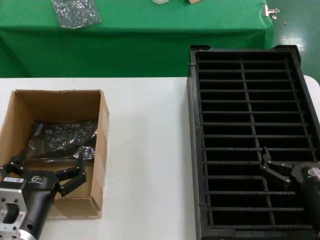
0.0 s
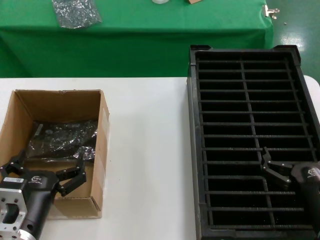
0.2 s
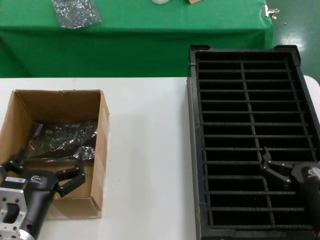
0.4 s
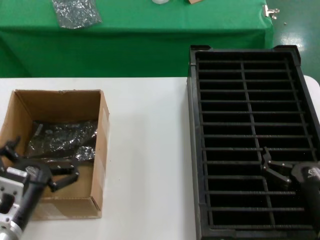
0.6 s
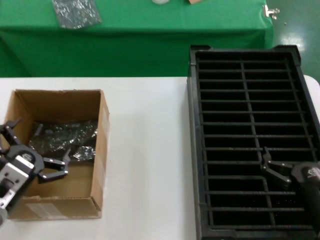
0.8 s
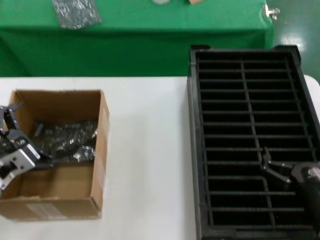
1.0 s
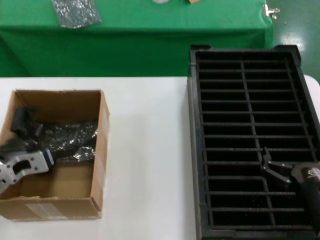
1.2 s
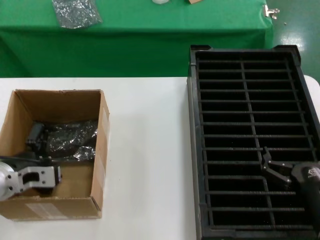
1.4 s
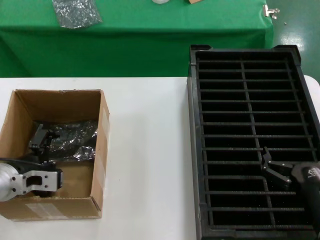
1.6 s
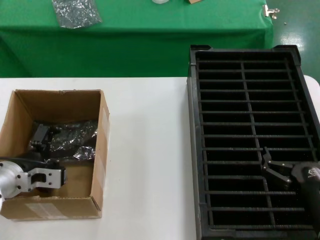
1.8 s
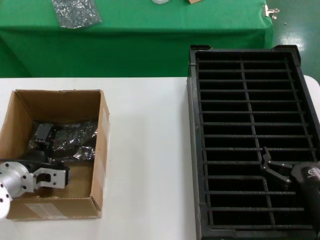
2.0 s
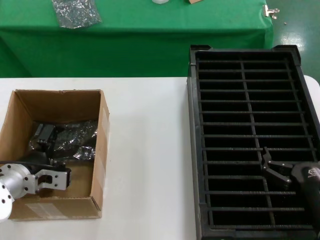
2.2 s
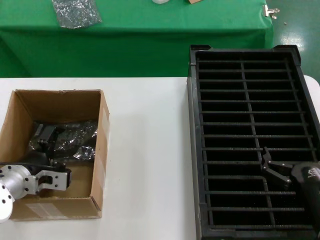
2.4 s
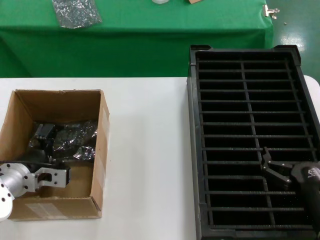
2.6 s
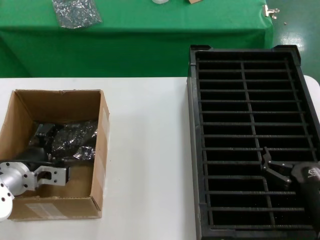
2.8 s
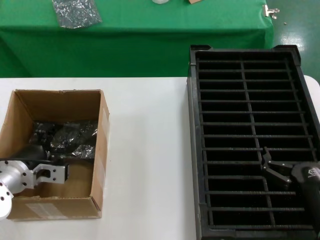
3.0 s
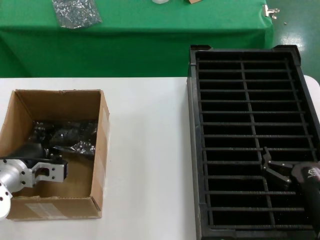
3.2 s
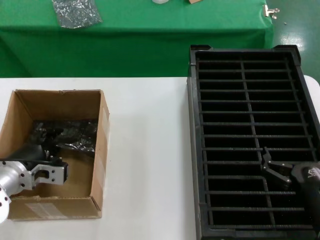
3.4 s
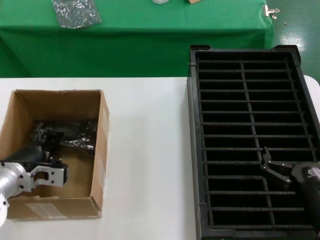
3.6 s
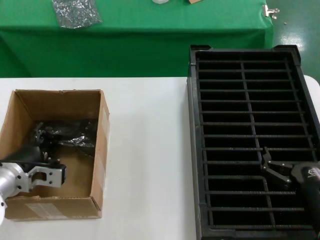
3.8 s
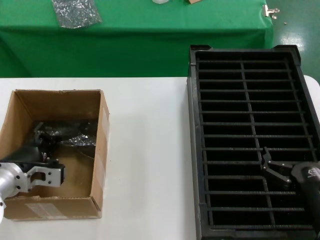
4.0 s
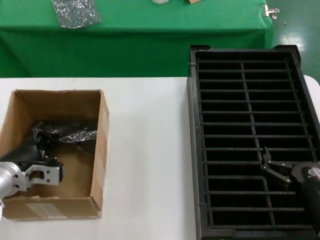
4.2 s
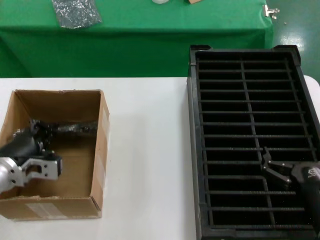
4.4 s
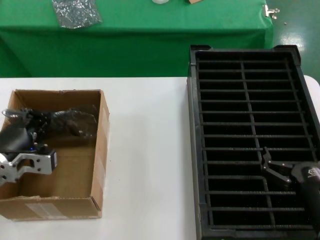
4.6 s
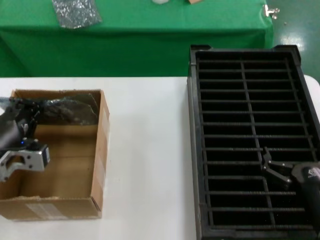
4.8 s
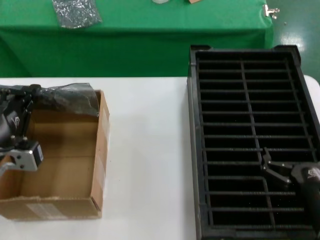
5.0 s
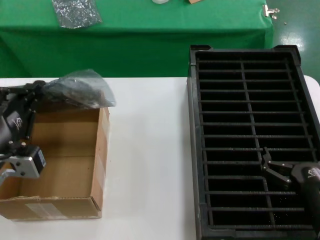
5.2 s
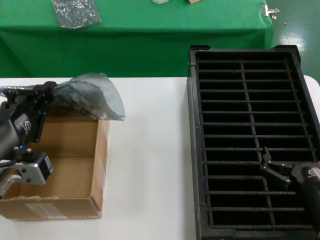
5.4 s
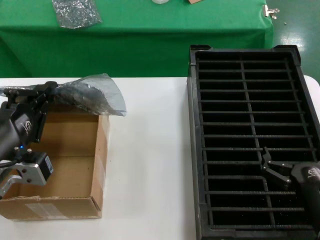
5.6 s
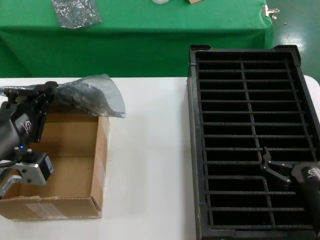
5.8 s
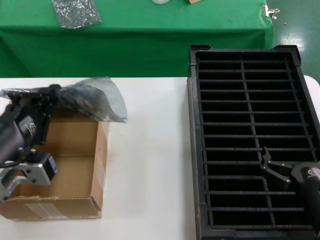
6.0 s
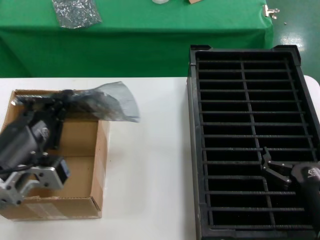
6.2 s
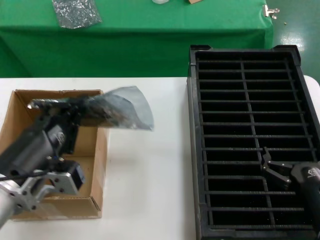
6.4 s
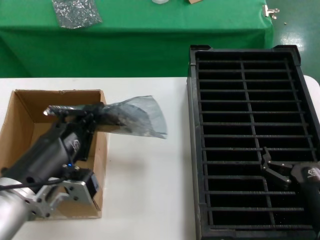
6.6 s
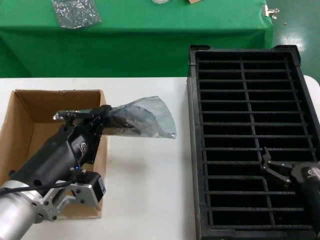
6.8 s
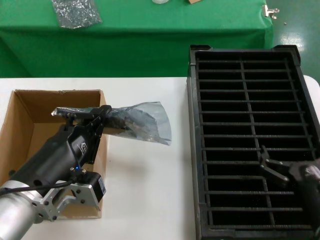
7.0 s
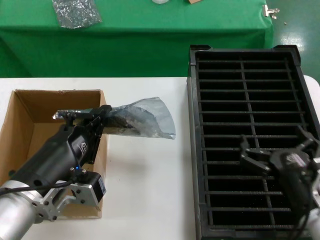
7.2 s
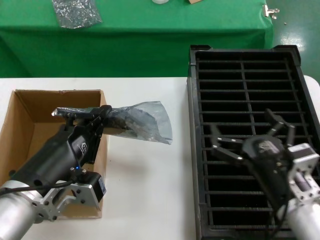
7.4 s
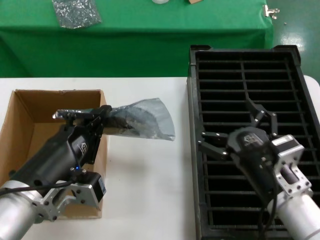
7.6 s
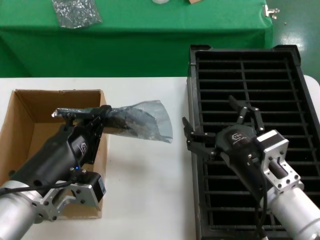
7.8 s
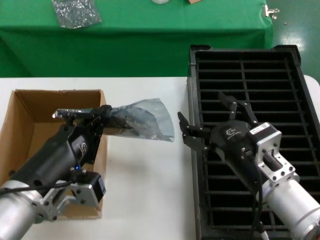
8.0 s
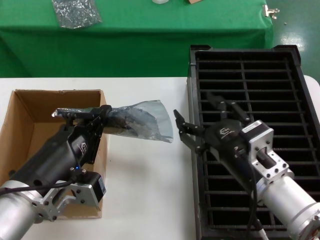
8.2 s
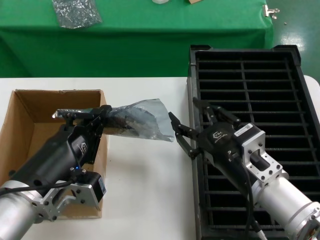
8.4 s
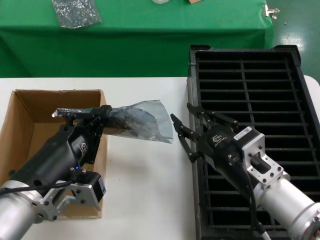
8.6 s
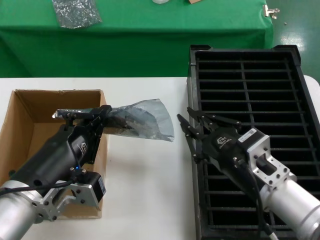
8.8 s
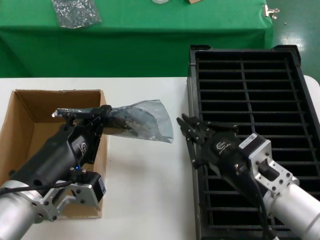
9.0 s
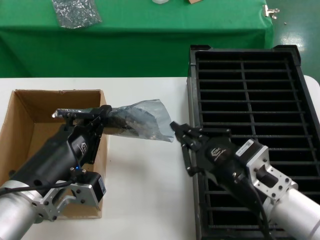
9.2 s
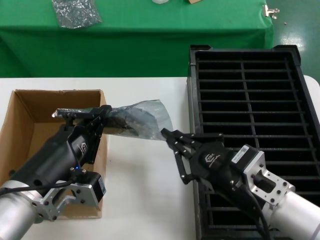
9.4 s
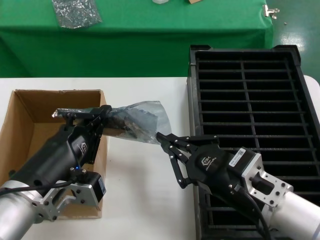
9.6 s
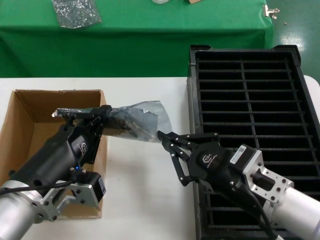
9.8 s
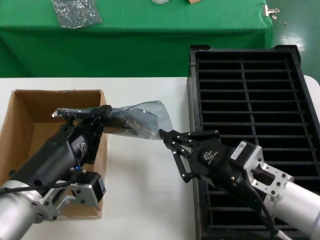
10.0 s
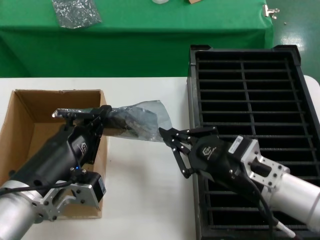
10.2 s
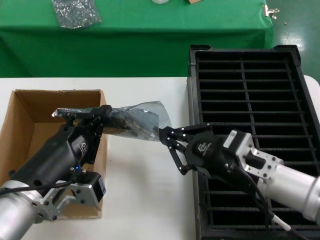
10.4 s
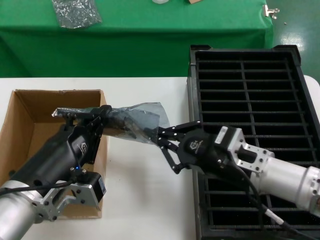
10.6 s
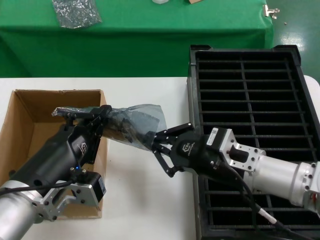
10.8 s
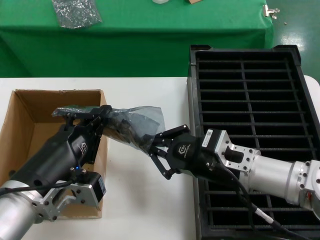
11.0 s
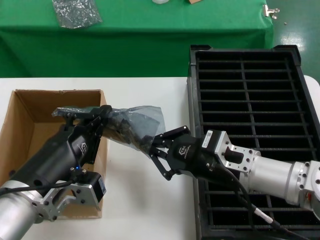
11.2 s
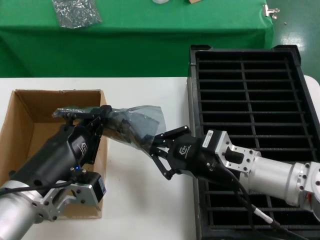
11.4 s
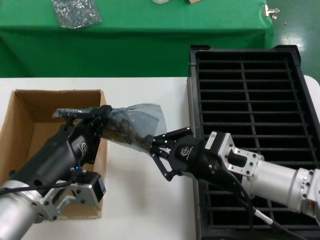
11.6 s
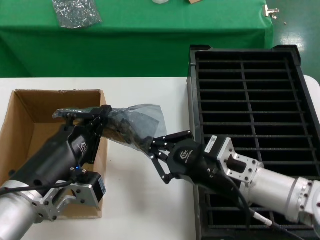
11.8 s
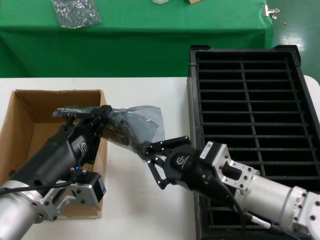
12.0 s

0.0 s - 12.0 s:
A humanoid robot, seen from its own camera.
Task of the whole recording: take out graphics card from box remove packaging put into black container.
Step, 0.0 s - 3.6 s: Grasp the bag.
Step, 4.0 s - 7.0 s: Lift the bag.
0.0 s - 1.6 s: The left hand is displaced forward, to the left and upward by some 15 cm.
1.6 s - 4.4 s: The hands stay close to where they were, moving slightly.
4.4 s - 6.0 s: The left hand travels backward and upward by roughly 15 cm.
6.0 s - 7.6 s: The left hand heads to the right, covering approximately 5 cm. Meanwhile the right hand moves to the left and upward, roughly 10 cm.
7.6 s - 9.0 s: The hands make only small movements.
9.0 s - 10.4 s: The hands stay close to where they were, moving slightly.
10.4 s - 12.0 s: There are only small adjustments of the hands.

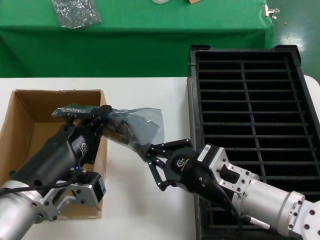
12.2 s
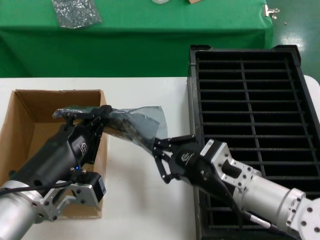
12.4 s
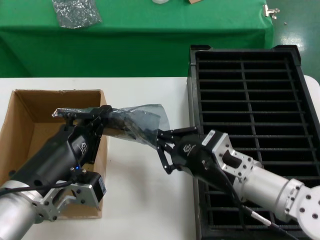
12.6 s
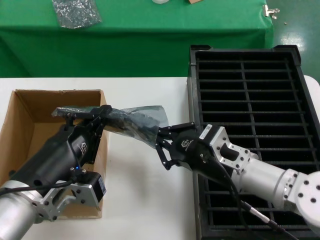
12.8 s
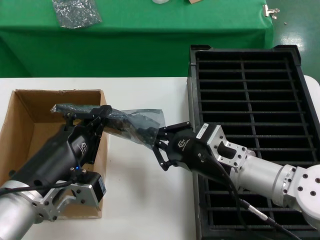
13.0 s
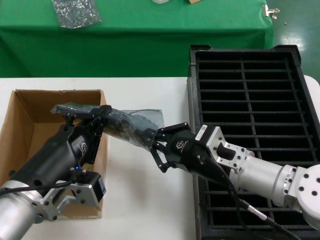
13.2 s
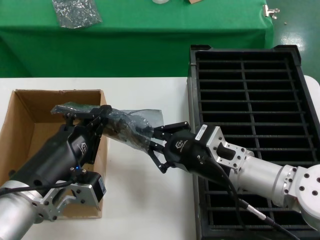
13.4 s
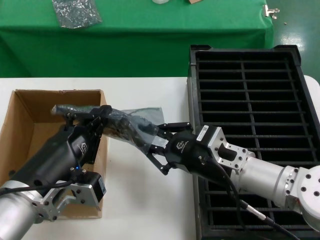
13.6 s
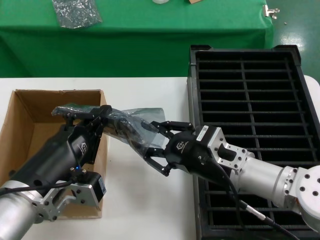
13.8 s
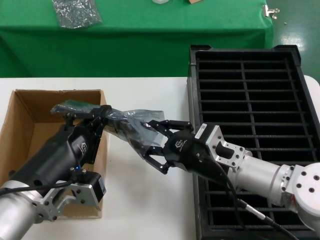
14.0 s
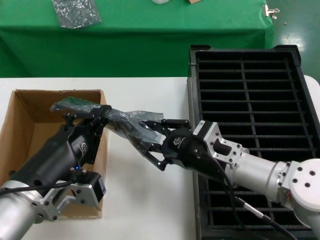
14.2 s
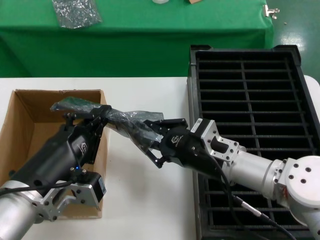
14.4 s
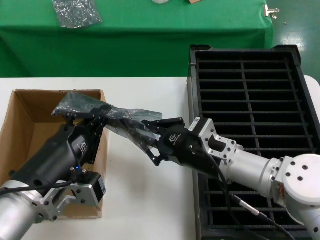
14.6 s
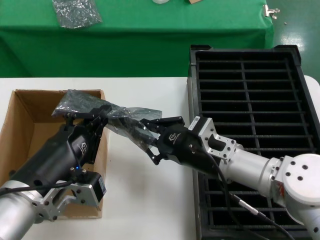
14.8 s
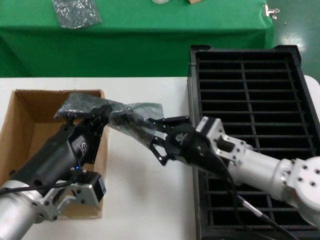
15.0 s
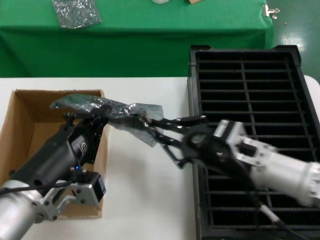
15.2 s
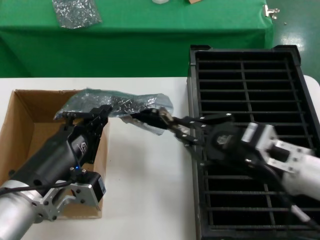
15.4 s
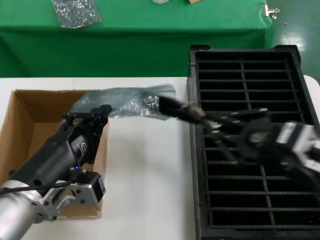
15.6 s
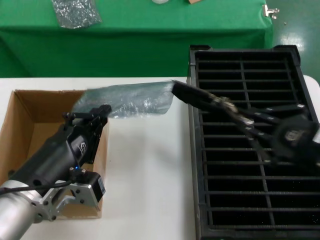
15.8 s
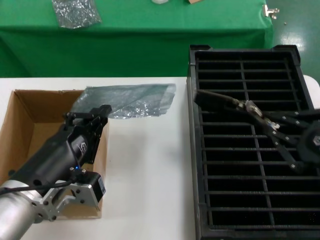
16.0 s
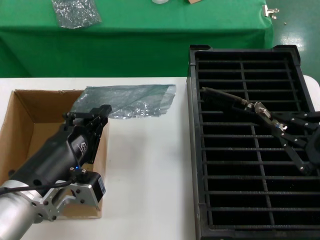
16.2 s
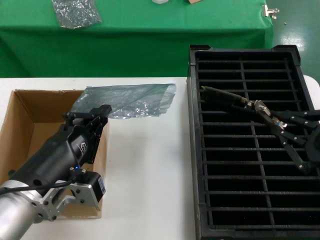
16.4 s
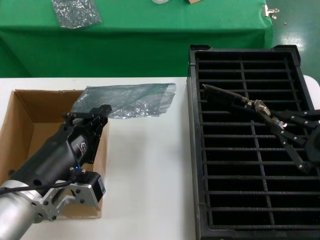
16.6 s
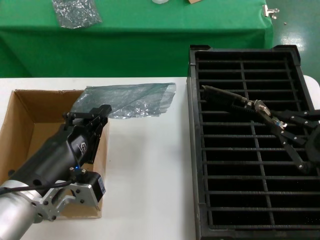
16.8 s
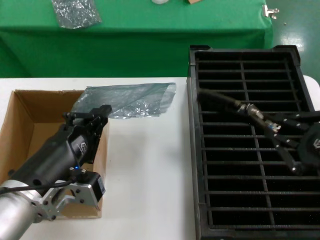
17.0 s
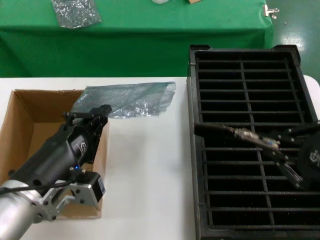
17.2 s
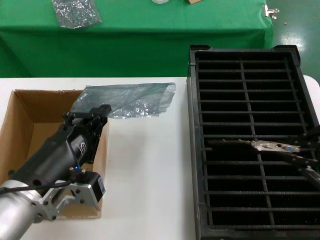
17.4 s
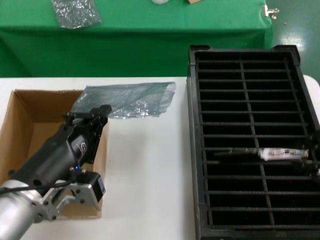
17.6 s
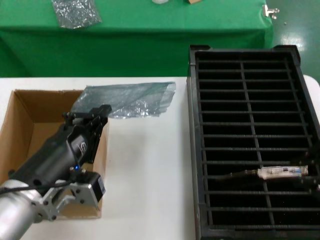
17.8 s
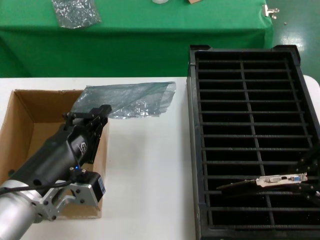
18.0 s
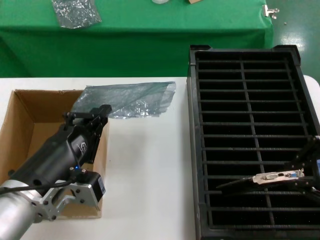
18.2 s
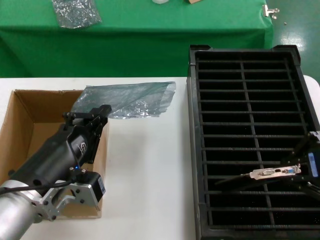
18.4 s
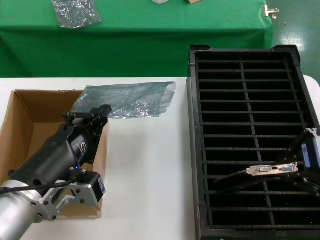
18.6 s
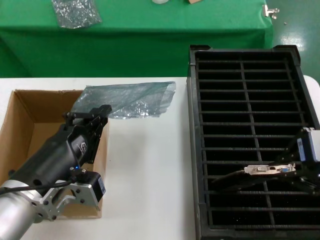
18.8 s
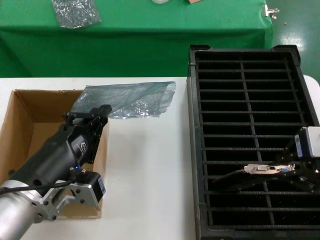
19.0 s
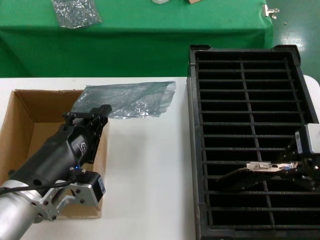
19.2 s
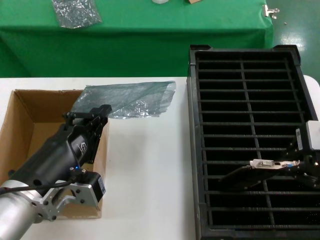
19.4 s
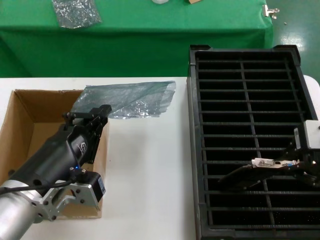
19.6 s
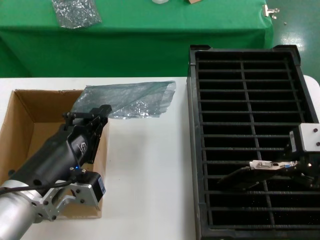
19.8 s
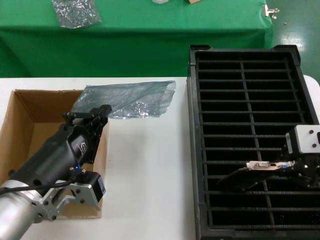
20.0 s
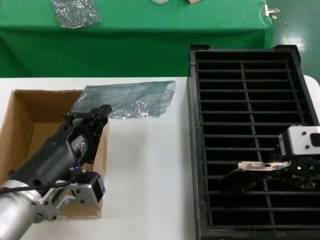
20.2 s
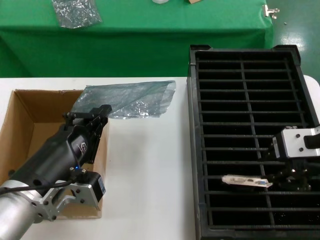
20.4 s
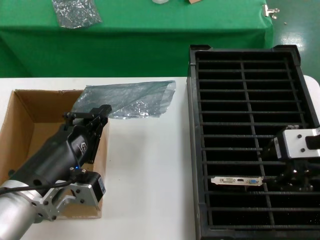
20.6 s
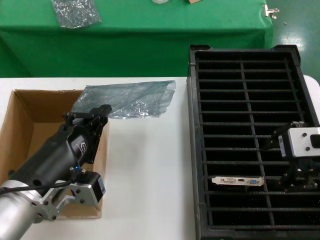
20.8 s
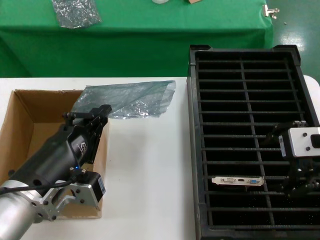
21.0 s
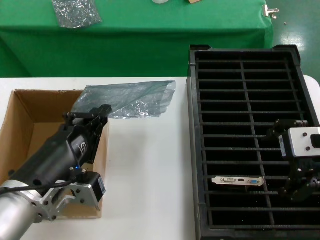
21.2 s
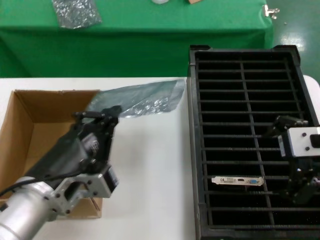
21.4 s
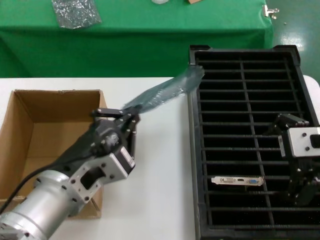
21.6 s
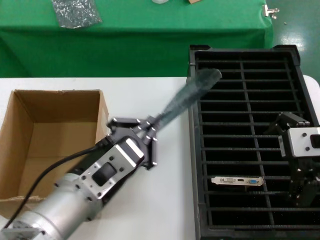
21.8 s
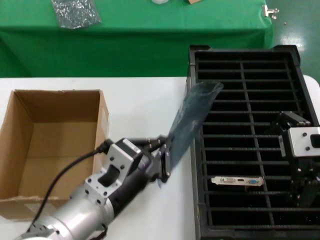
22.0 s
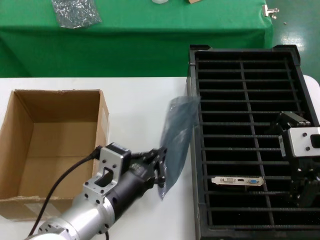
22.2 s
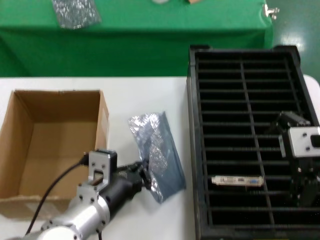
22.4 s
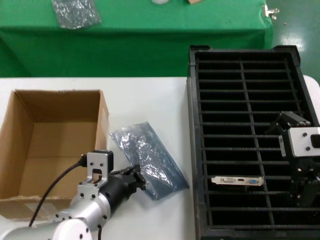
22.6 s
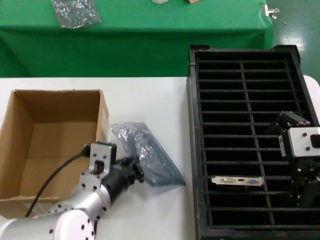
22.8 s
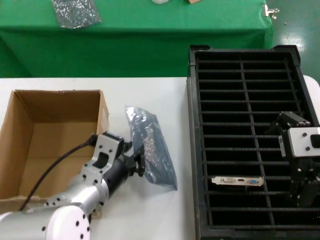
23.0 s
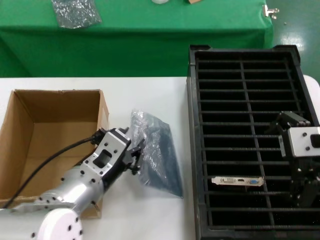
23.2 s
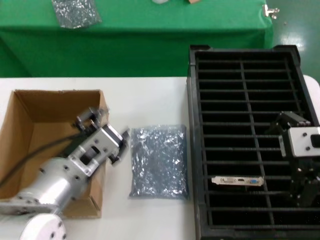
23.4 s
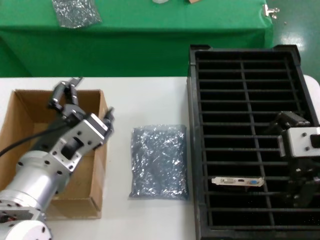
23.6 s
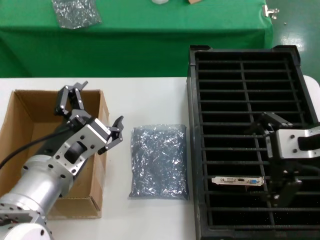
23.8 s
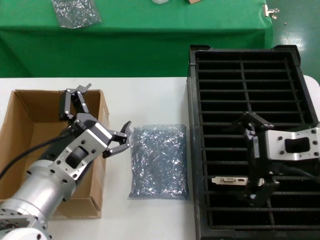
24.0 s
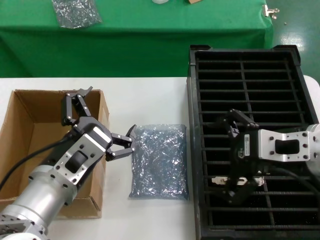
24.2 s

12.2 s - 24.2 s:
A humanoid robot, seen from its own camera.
Task of the whole recording: take out graphics card from box remove packaging put into black container.
Step, 12.2 s - 15.8 s: Take out the hard disk of the bag.
Step, 16.0 s - 20.4 s: Place the hard disk in the hard disk enclosure.
Step, 20.6 s - 23.2 s: Place the down the bag.
12.2 s - 13.8 s: The hands make only small movements.
13.8 s - 15.2 s: The hands make only small movements.
15.2 s - 16.6 s: The right hand shifts some 20 cm to the right, backward and upward.
16.6 s - 18.2 s: The right hand goes roughly 10 cm upward.
18.2 s - 19.8 s: The right hand goes roughly 5 cm forward.
19.8 s - 21.2 s: There are only small adjustments of the hands.
21.2 s - 22.6 s: The left hand goes some 10 cm forward, downward and to the right.
22.6 s - 24.2 s: The right hand shifts by roughly 5 cm, while the left hand is displaced upward by about 5 cm.
